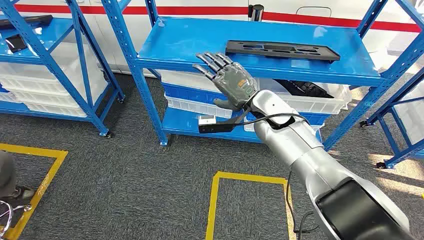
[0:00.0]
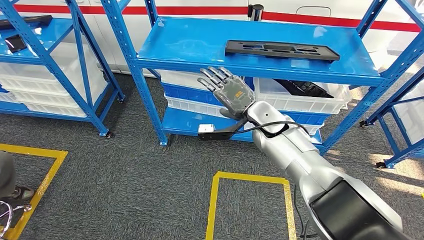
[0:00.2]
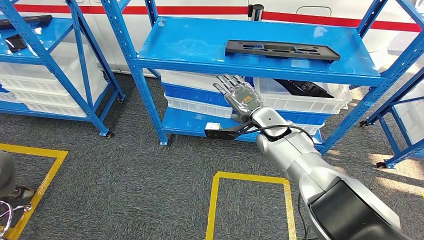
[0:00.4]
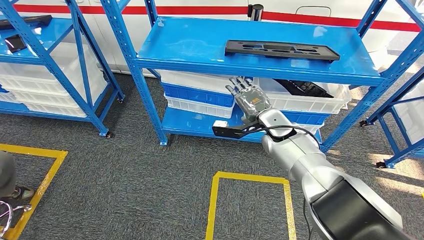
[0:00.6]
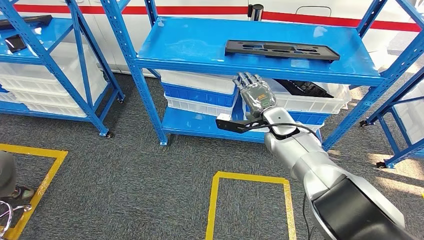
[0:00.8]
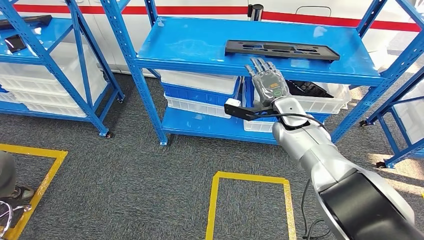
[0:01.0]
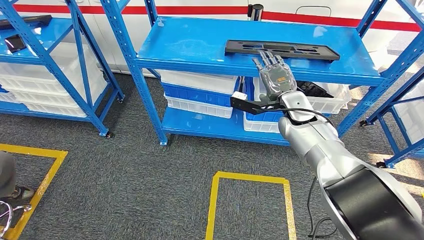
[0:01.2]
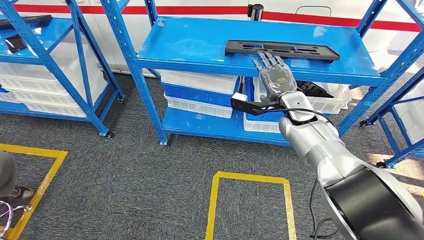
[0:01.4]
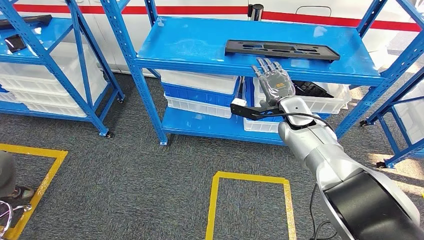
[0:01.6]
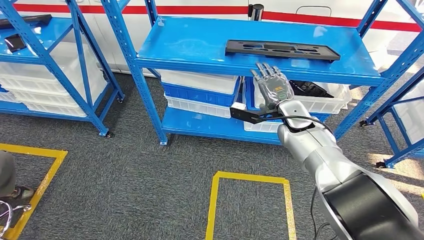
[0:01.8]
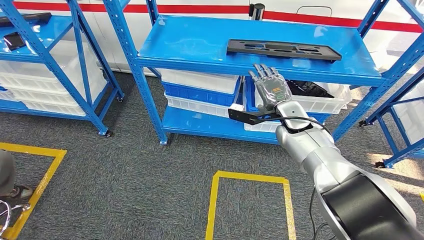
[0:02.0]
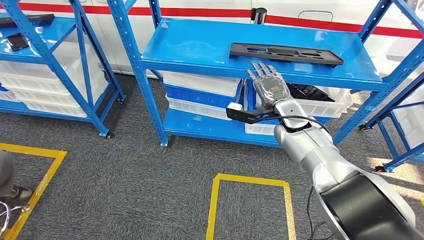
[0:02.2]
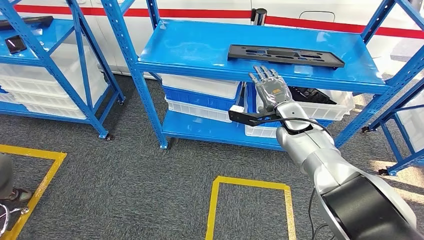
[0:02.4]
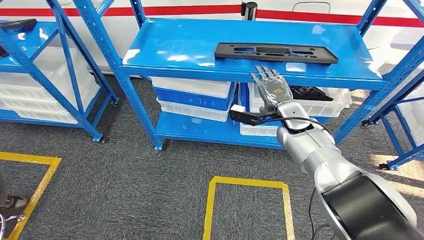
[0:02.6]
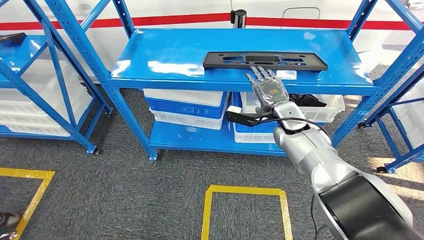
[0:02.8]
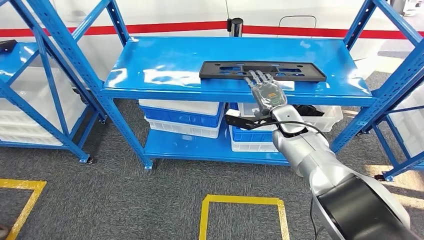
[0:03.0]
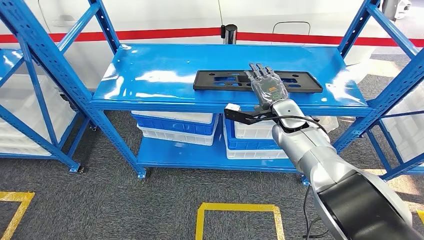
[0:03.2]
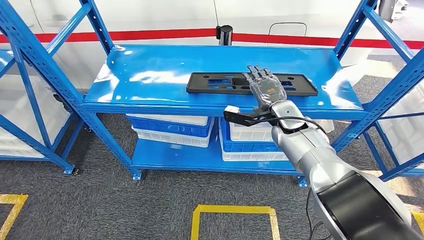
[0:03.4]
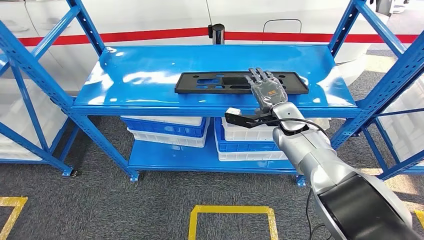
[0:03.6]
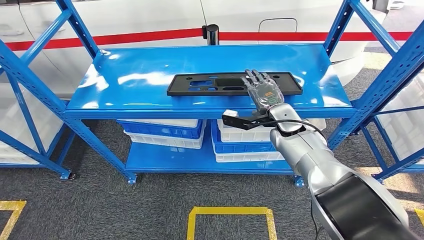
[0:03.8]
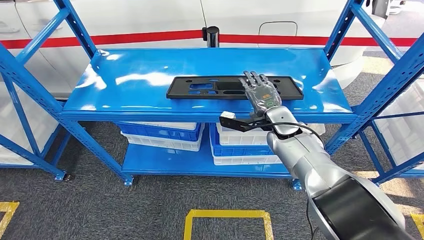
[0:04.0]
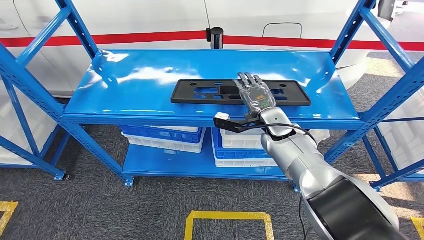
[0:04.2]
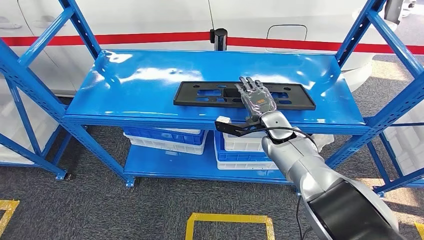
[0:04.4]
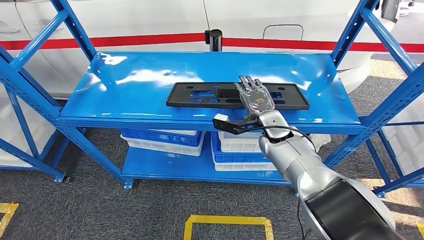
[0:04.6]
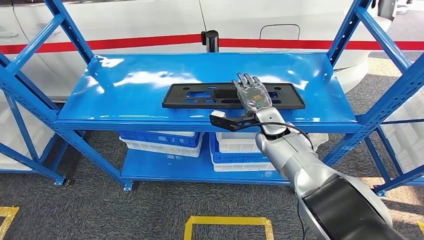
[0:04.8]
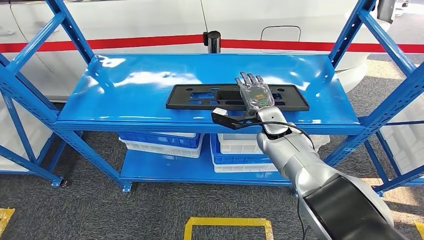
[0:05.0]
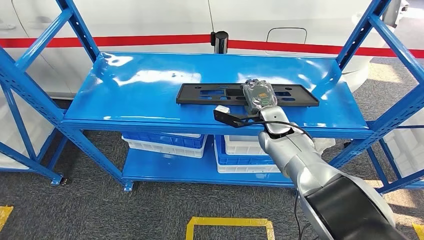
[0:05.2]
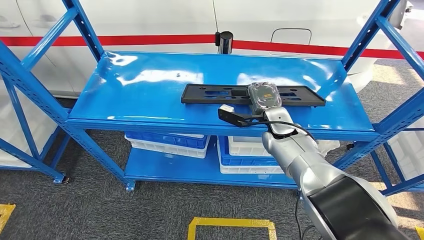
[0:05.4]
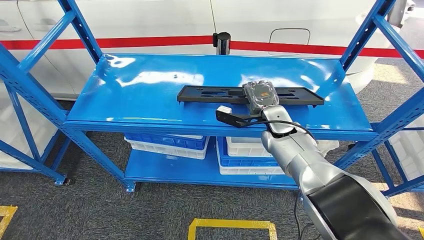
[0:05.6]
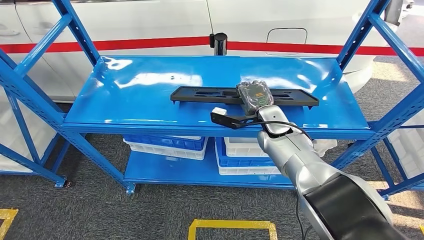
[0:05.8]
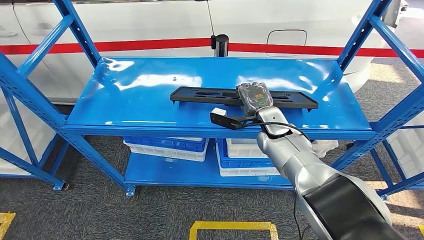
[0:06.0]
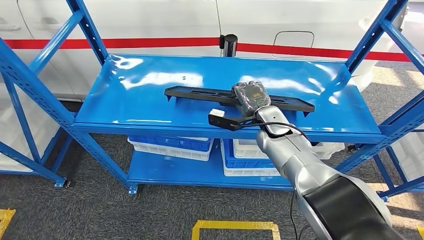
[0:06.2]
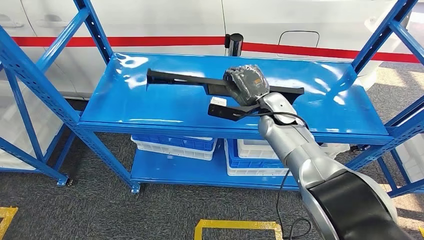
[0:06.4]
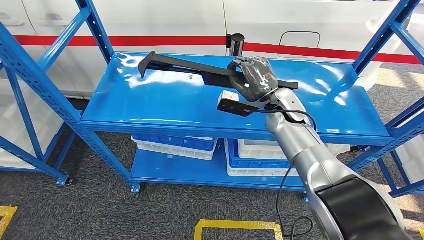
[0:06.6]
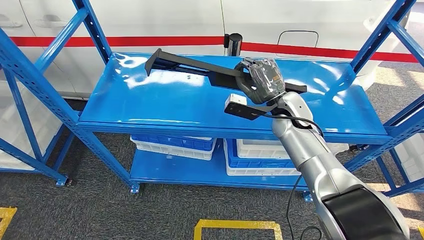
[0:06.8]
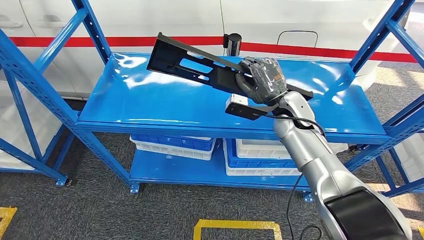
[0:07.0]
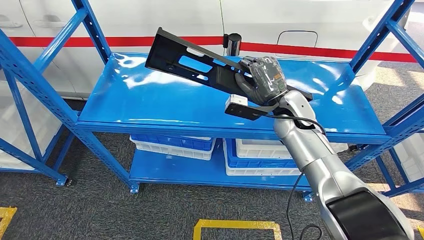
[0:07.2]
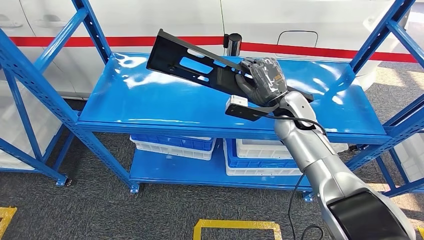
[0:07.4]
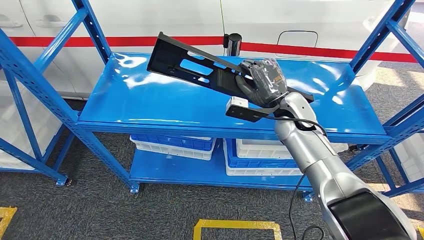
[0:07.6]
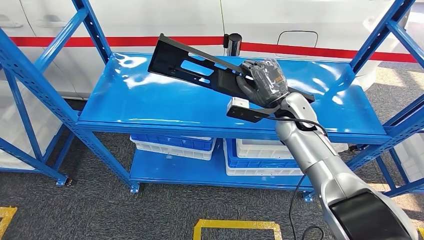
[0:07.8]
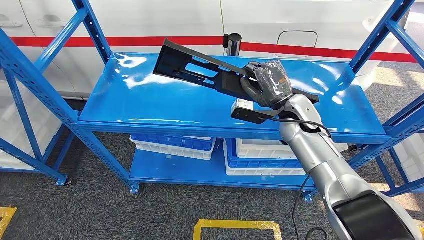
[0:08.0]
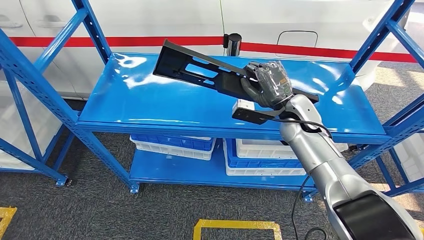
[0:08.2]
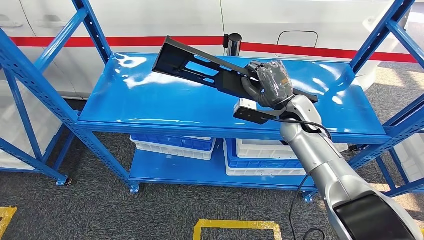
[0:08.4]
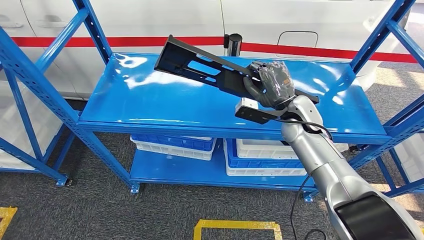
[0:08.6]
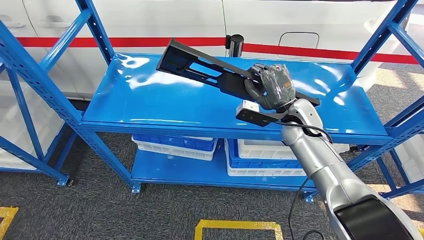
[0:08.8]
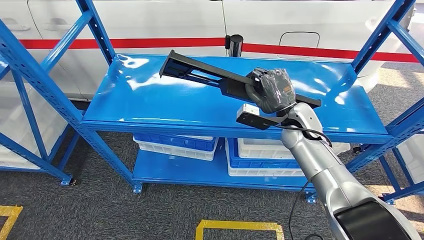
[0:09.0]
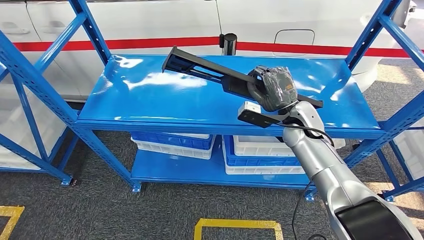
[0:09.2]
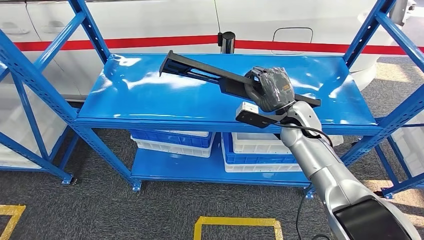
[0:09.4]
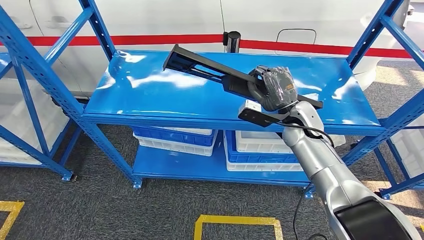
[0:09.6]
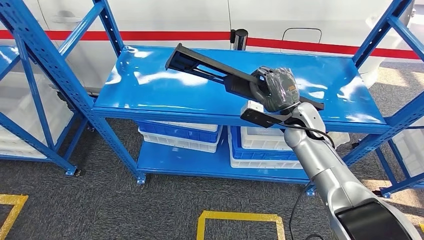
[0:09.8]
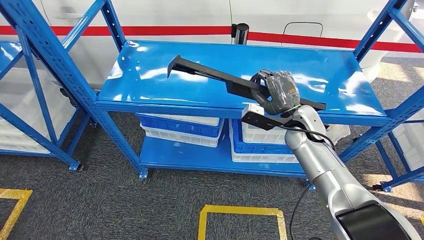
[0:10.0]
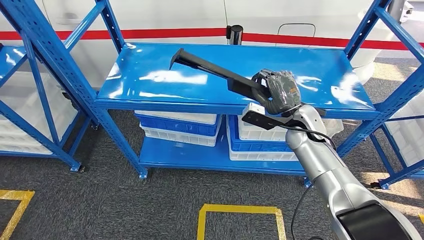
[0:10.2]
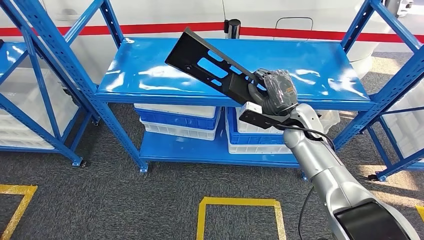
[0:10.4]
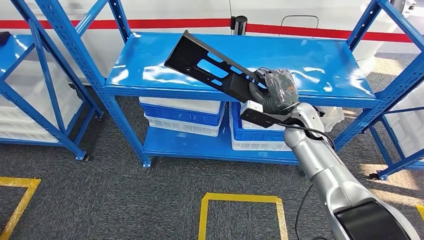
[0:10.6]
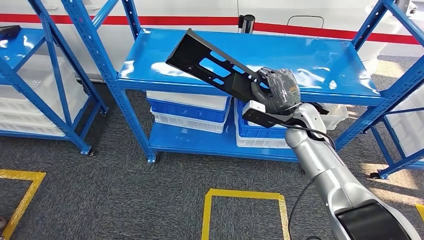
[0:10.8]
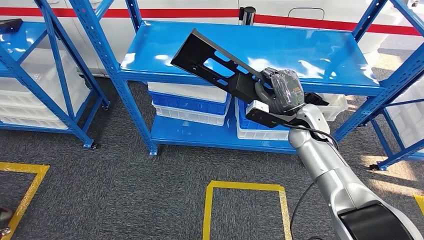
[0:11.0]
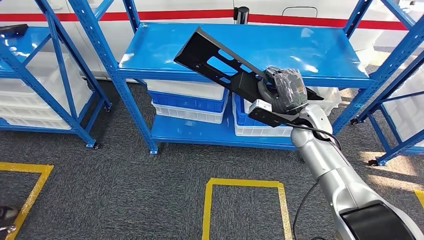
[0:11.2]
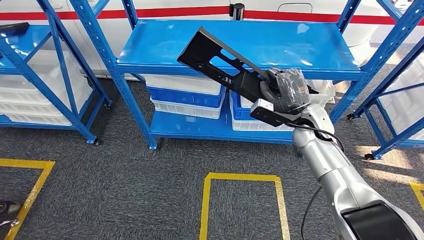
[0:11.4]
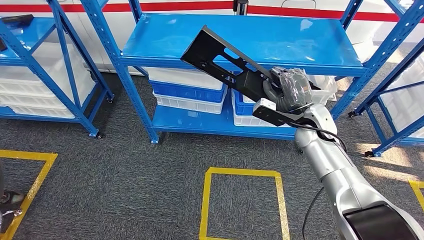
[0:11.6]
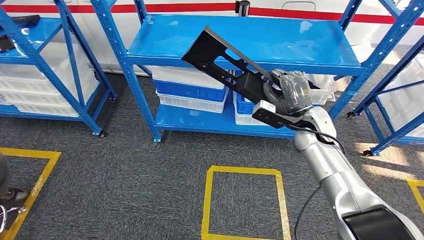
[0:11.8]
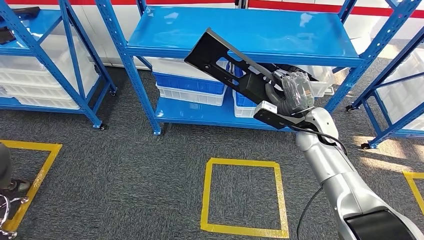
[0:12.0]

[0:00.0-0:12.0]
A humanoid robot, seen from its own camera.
Step, 0:00.0 to 0:09.0: Pick up the large material from the shelf.

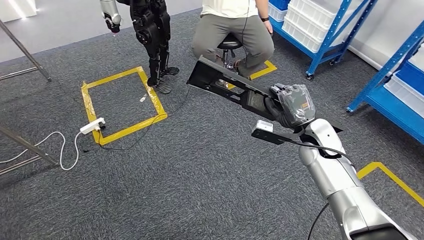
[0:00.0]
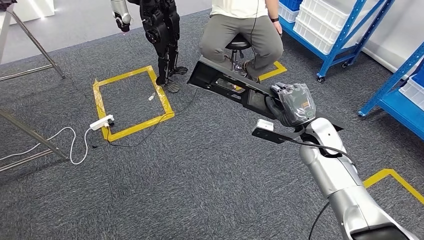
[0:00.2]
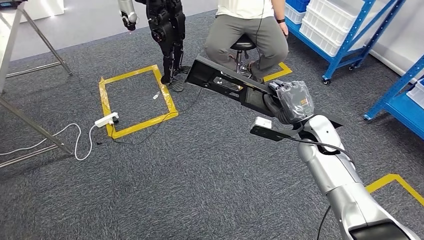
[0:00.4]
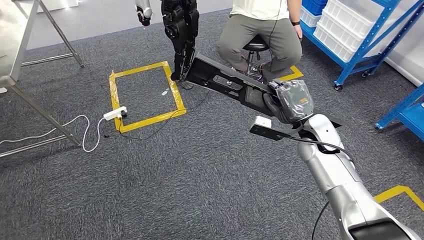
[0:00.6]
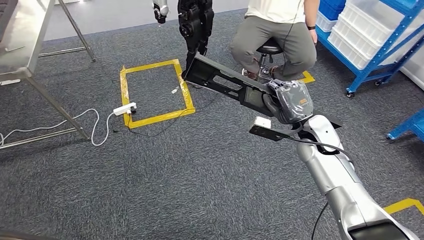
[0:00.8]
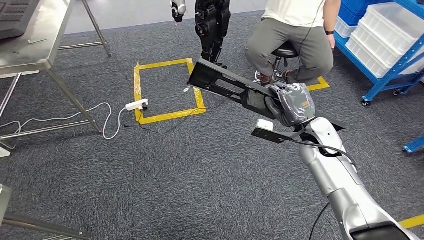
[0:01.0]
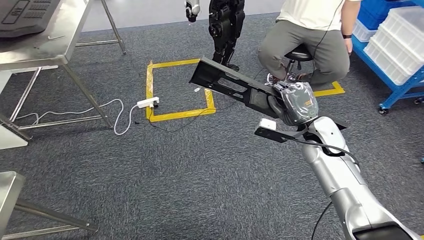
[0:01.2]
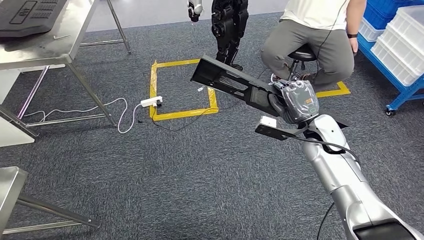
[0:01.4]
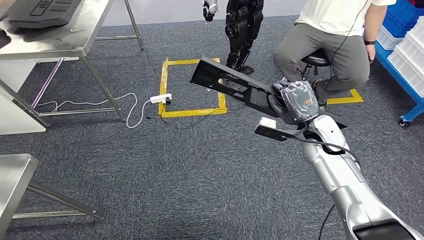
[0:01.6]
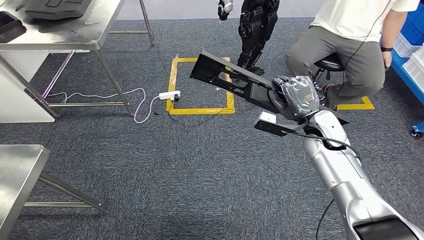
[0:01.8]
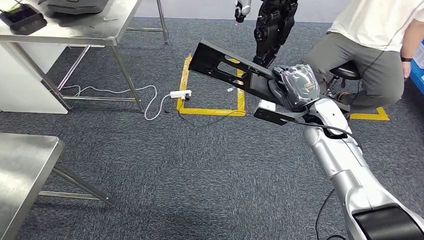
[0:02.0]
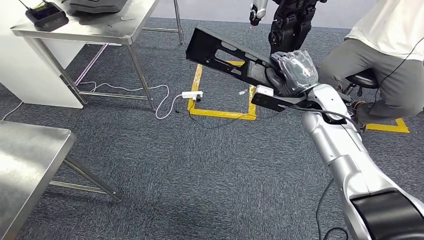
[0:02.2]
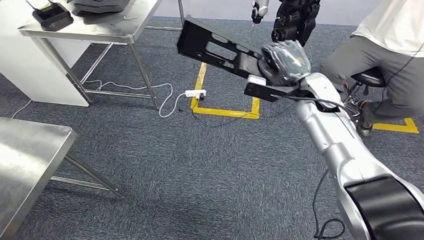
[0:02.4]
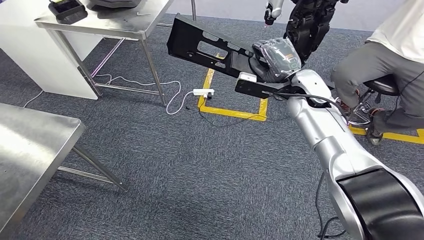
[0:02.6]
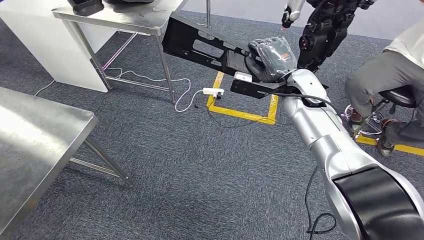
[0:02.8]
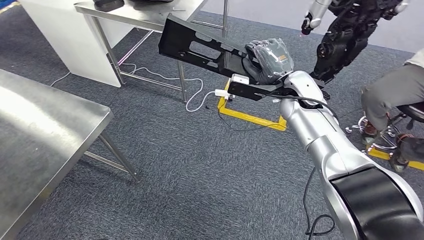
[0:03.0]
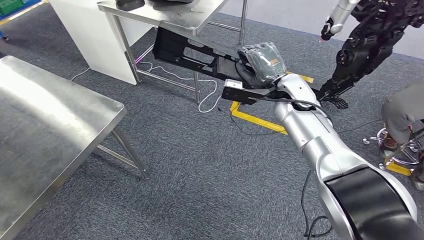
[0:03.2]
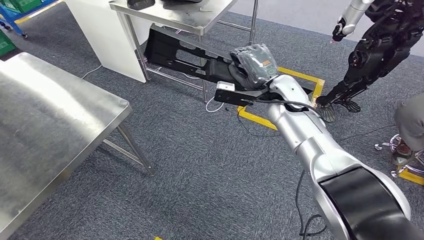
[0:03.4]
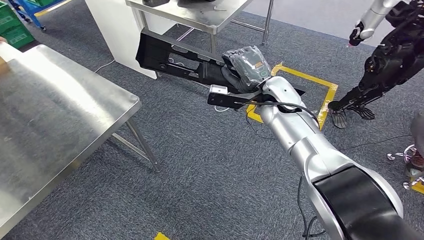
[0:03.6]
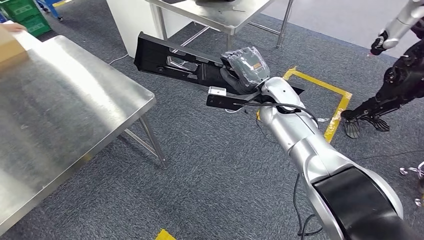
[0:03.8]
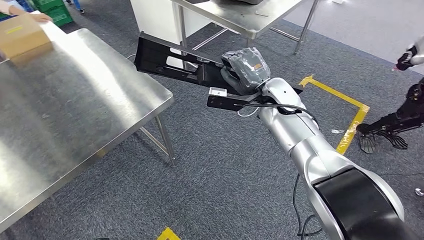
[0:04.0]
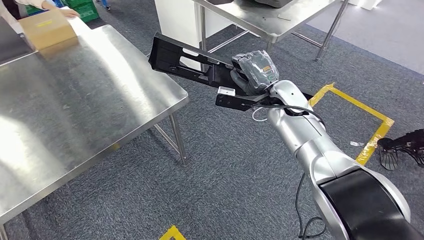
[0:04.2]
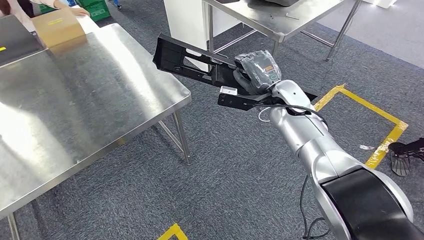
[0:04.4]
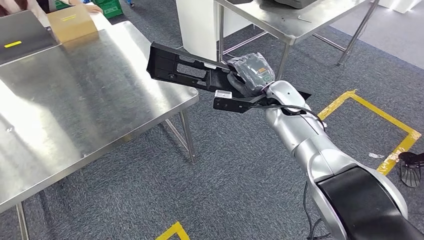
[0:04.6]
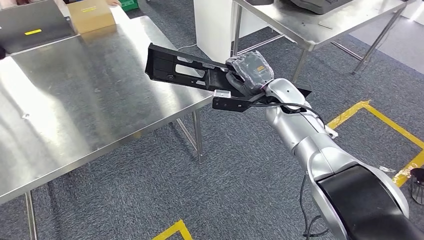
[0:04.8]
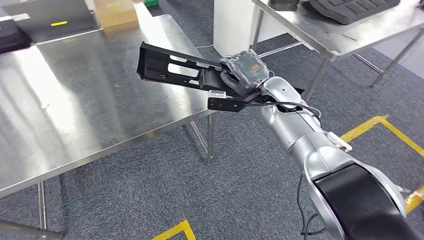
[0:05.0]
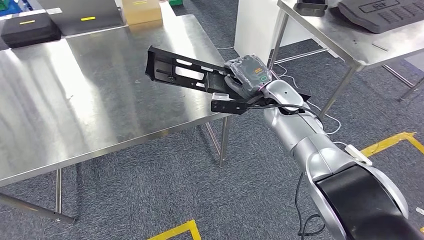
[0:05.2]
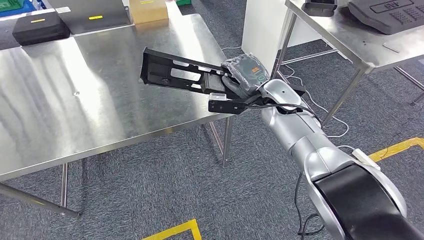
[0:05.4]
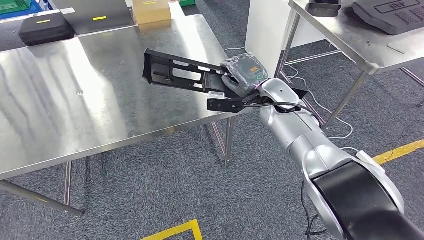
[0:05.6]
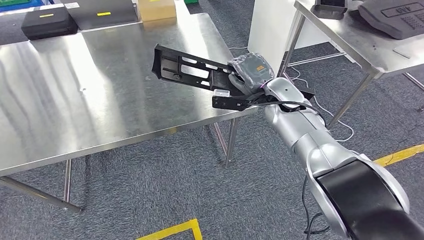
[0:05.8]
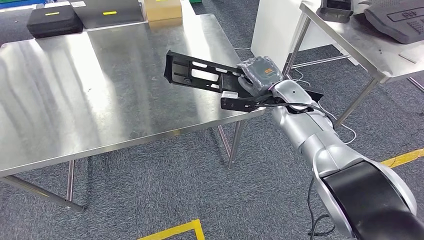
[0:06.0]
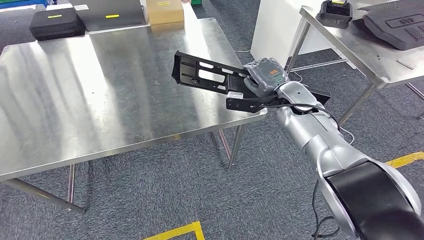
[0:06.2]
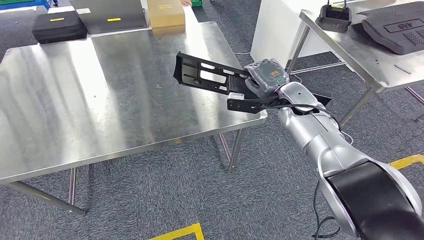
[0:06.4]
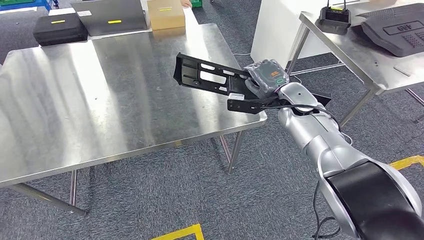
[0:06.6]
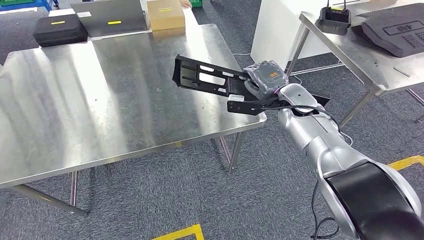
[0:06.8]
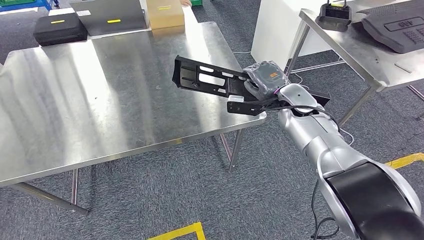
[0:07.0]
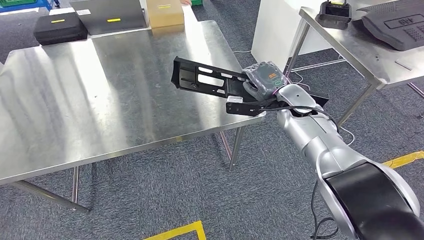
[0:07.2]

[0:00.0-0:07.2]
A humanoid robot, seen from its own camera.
Step, 0:00.0 to 0:04.0: Move the large material to the workbench.
